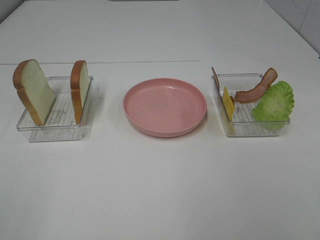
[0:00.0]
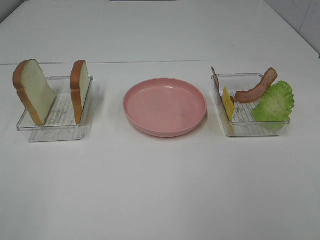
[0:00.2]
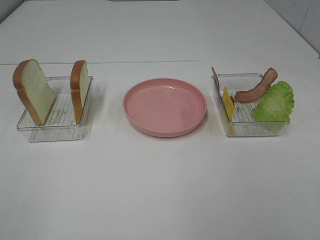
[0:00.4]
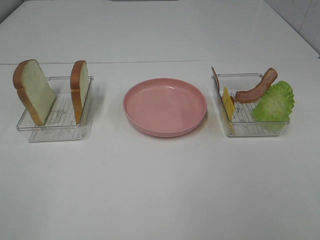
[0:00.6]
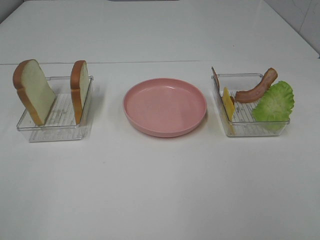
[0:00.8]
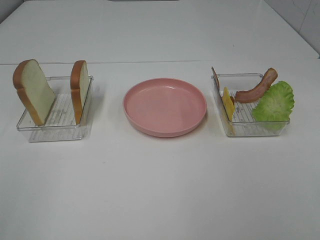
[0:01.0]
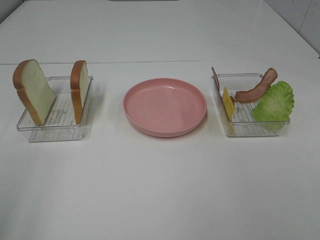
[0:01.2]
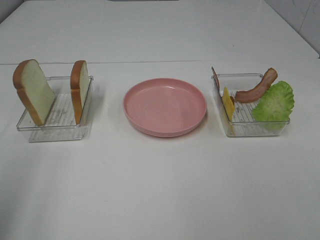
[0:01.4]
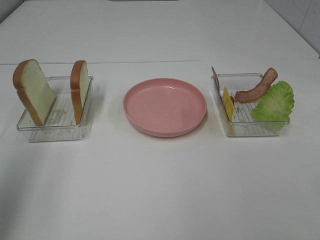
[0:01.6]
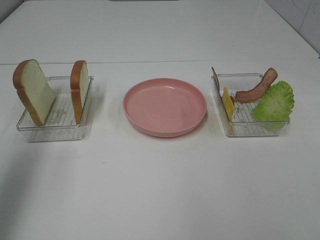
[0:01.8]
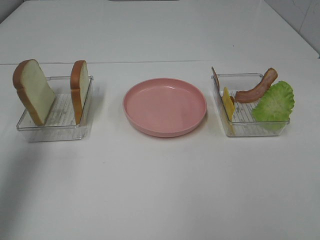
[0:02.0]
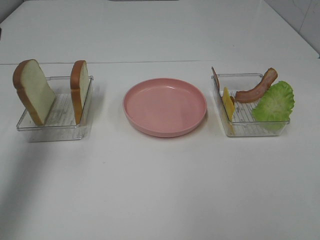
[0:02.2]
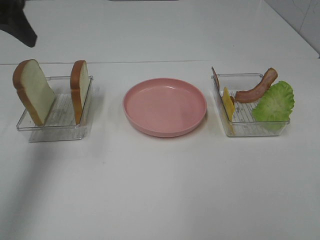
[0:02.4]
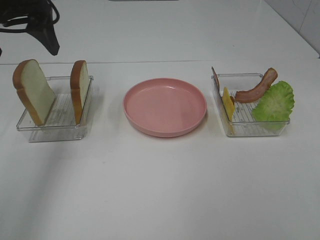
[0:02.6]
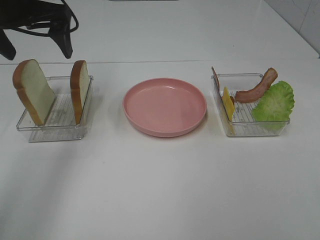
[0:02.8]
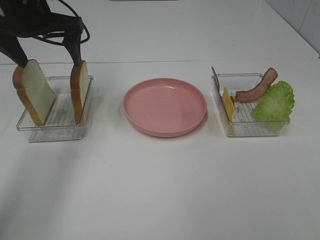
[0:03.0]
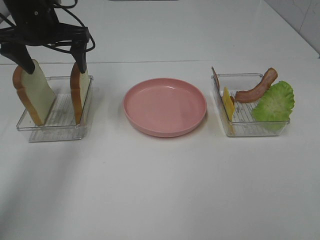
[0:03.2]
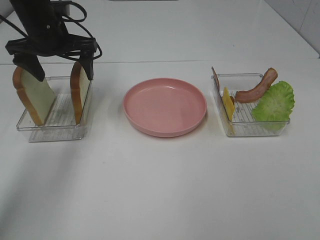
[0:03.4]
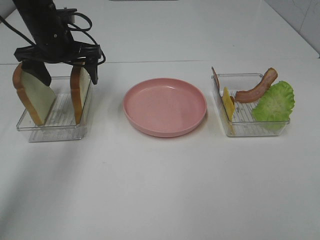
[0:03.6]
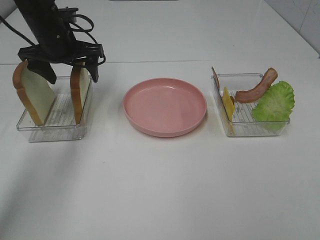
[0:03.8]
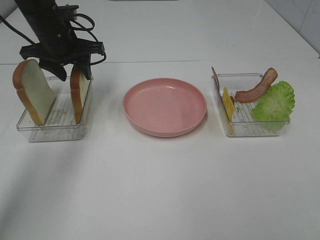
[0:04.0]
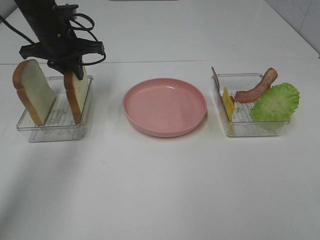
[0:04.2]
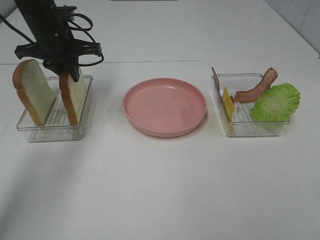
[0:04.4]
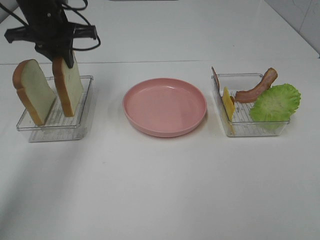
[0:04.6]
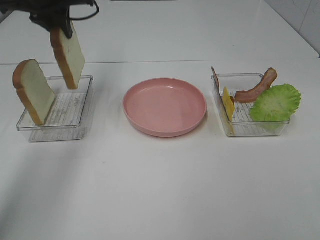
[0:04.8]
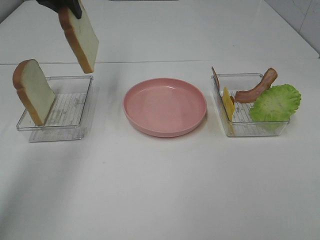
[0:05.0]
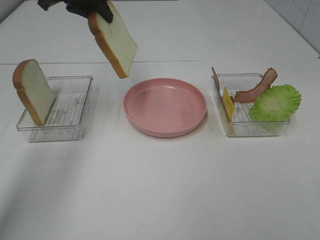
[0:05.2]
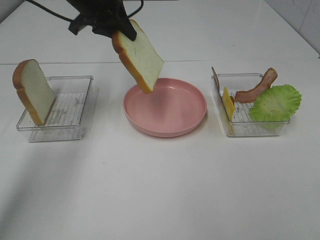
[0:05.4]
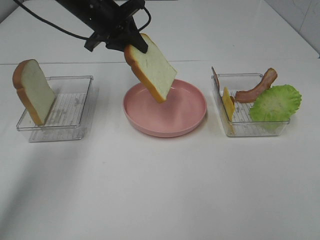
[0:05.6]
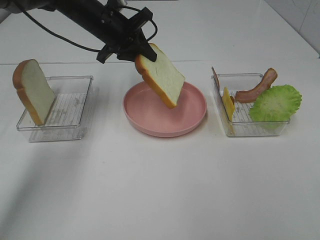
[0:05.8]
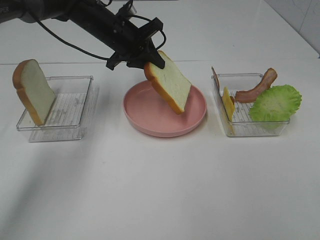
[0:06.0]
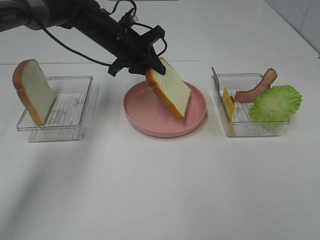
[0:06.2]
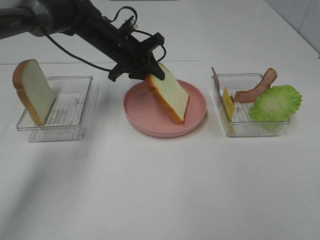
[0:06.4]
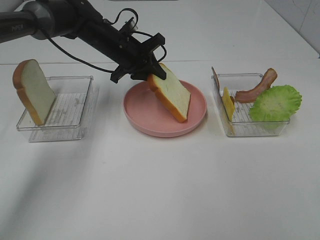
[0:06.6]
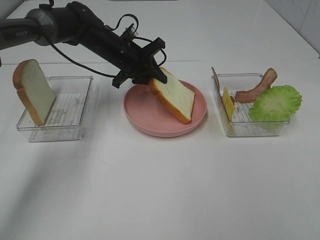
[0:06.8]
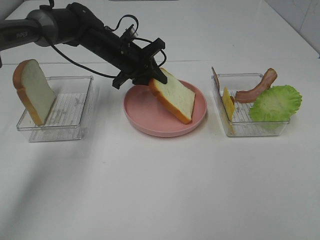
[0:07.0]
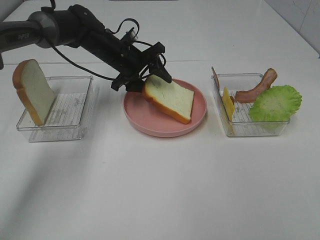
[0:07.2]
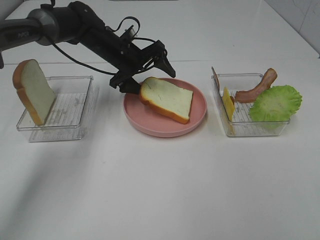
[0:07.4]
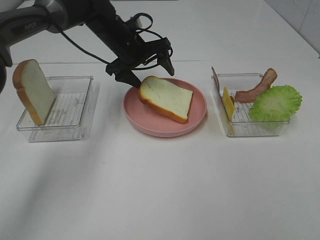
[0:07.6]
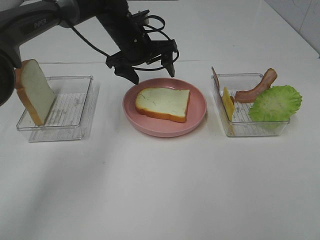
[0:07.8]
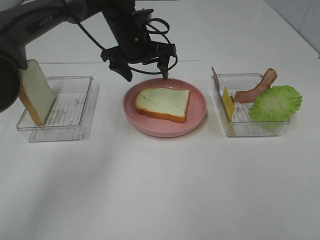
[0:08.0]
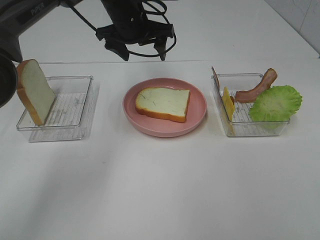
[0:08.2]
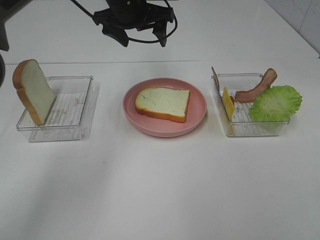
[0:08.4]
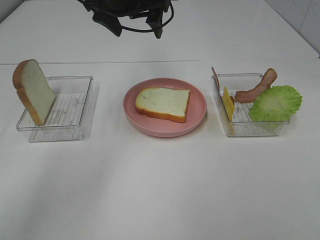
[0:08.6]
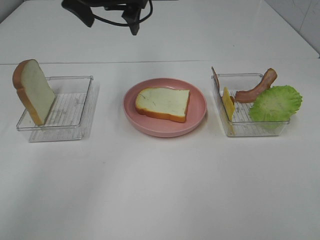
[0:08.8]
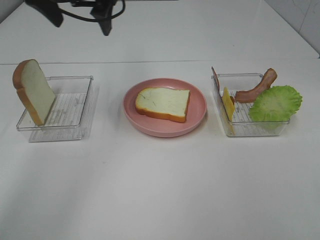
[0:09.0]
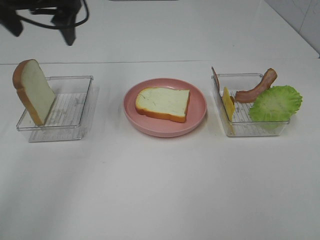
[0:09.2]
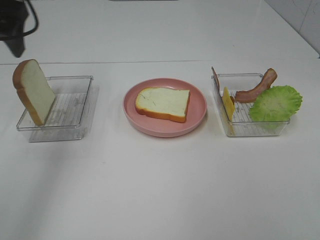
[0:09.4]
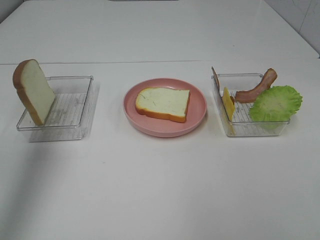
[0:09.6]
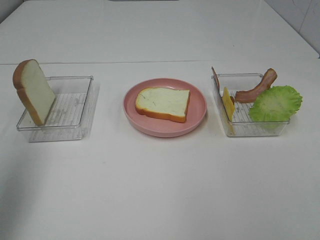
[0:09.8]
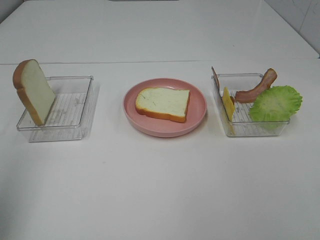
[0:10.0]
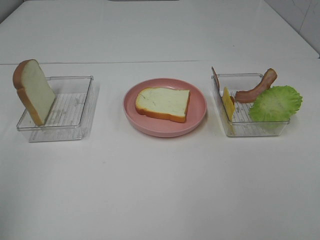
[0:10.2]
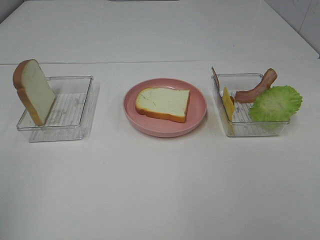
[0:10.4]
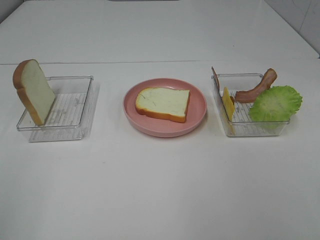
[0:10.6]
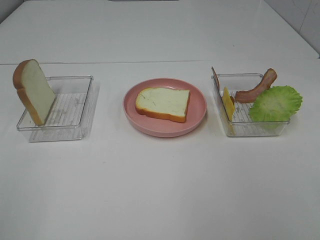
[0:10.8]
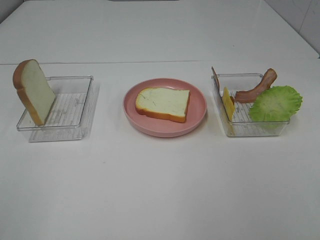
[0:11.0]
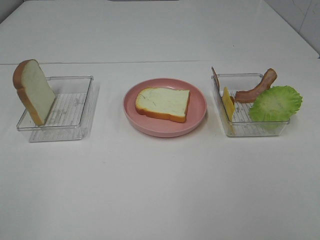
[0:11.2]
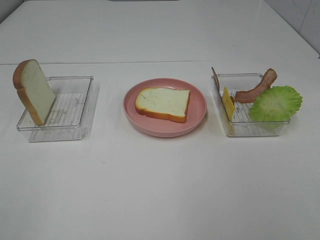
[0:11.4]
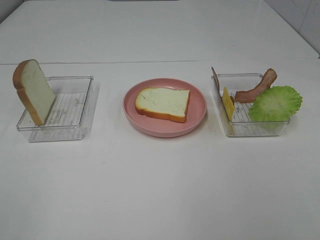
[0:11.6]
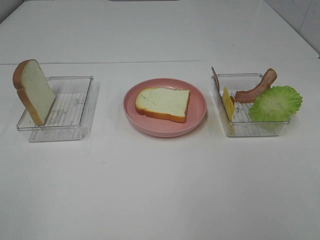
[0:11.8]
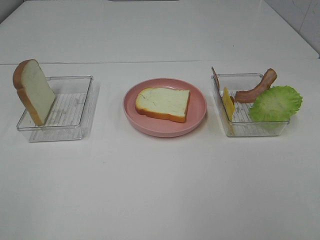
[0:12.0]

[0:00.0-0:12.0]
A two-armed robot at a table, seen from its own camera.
Task of the whole recording: Make sandwiches.
Step, 0:00.0 to 0:04.2: Left hand:grab the bread slice.
Step, 0:04.4 to 0:07.8: Left hand:place the bread slice on the plate.
0:00.0 to 0:01.6: The left gripper heads forward, covering some 15 cm.
0:01.6 to 0:03.0: The left gripper moves forward and to the right, roughly 30 cm.
0:03.0 to 0:04.4: The left gripper shifts some 5 cm downward, and closes up.
0:04.4 to 0:06.0: The left gripper goes about 10 cm to the right, and reaches approximately 10 cm upward, then returns.
0:06.0 to 0:07.6: The left gripper opens up.
0:07.6 to 0:09.0: The left gripper heads upward, backward and to the left, covering some 20 cm.
0:09.0 to 0:10.4: The left gripper shifts some 40 cm backward and to the left.

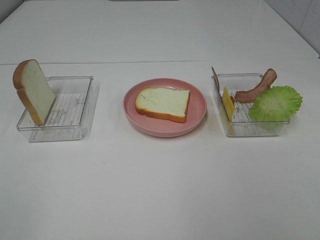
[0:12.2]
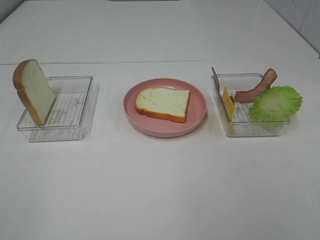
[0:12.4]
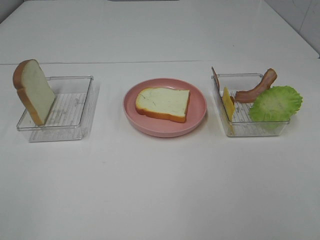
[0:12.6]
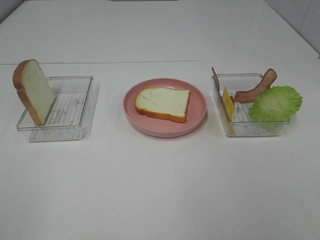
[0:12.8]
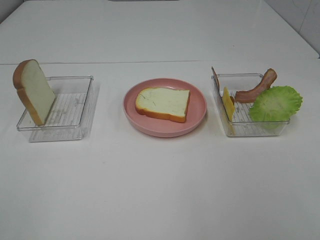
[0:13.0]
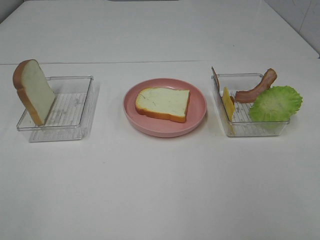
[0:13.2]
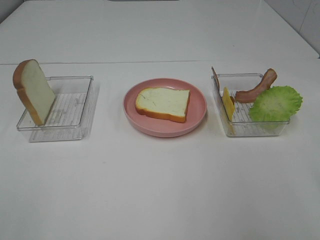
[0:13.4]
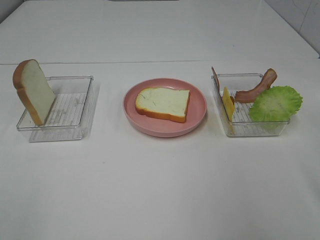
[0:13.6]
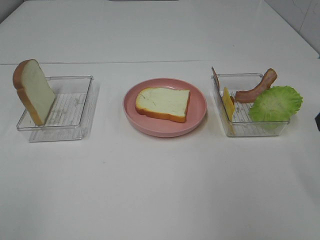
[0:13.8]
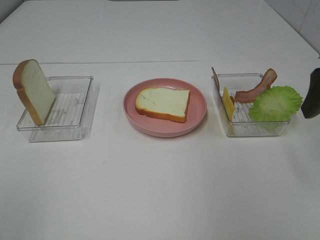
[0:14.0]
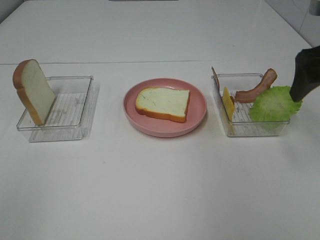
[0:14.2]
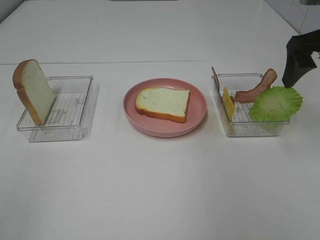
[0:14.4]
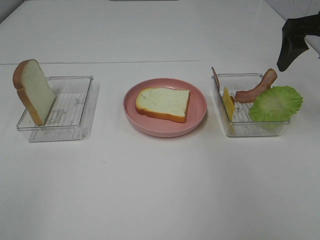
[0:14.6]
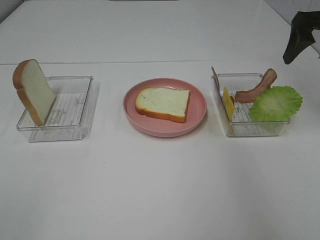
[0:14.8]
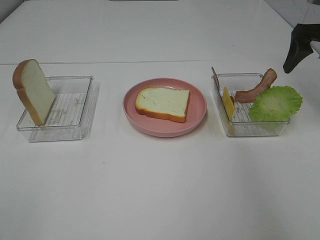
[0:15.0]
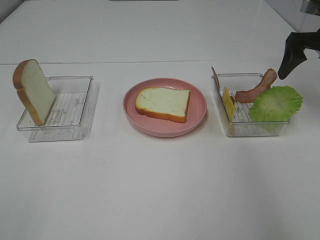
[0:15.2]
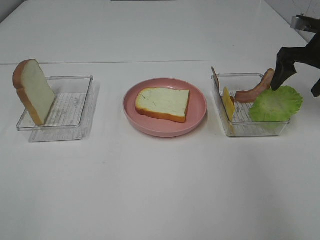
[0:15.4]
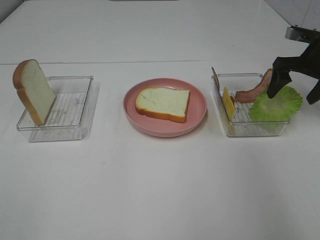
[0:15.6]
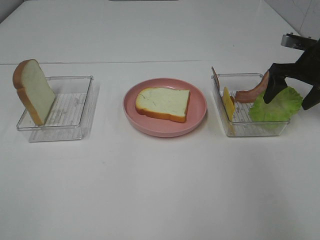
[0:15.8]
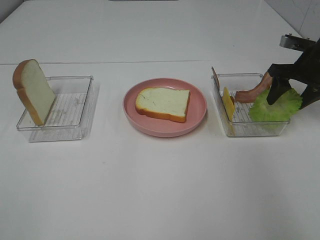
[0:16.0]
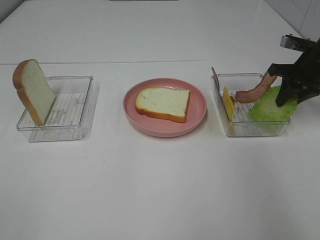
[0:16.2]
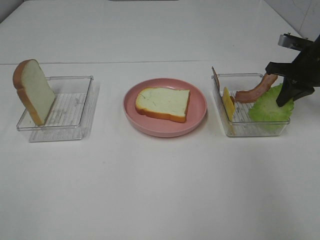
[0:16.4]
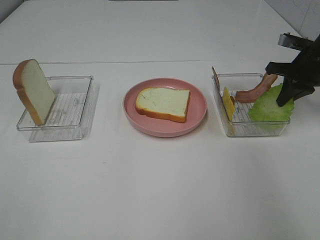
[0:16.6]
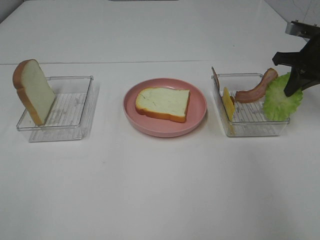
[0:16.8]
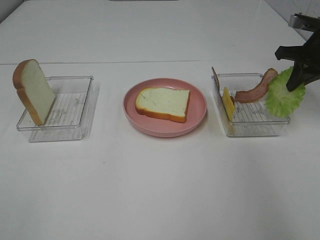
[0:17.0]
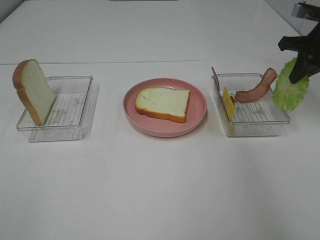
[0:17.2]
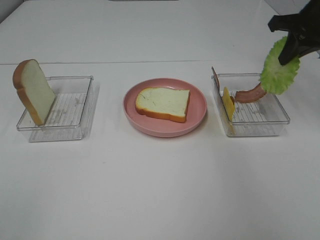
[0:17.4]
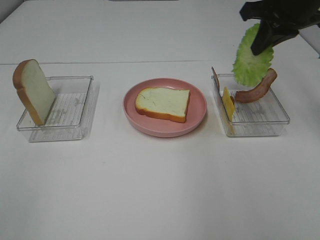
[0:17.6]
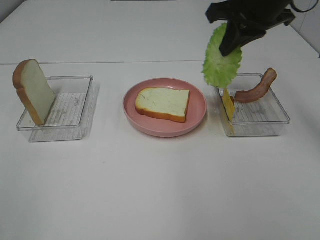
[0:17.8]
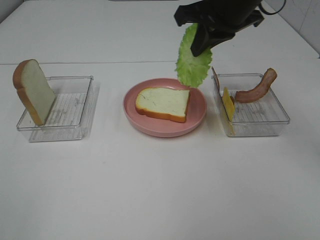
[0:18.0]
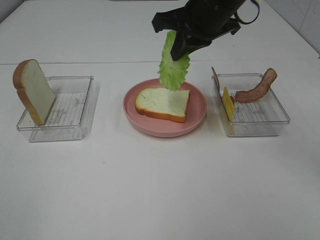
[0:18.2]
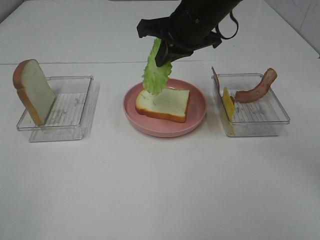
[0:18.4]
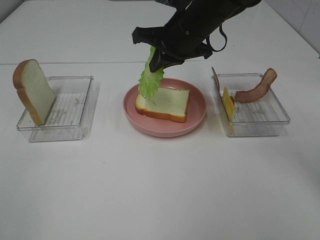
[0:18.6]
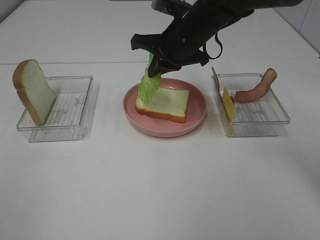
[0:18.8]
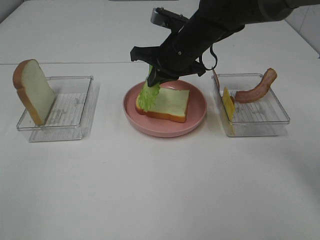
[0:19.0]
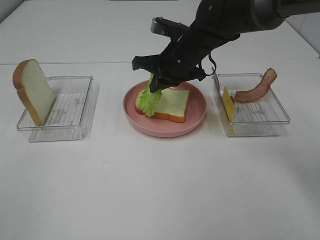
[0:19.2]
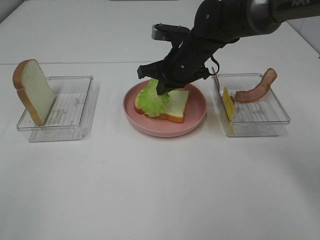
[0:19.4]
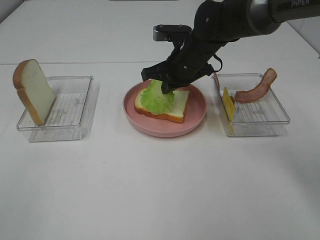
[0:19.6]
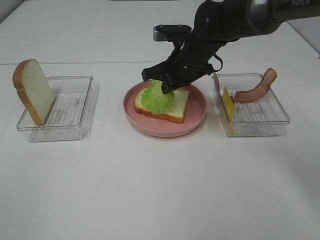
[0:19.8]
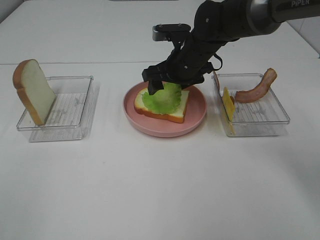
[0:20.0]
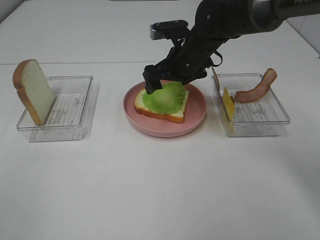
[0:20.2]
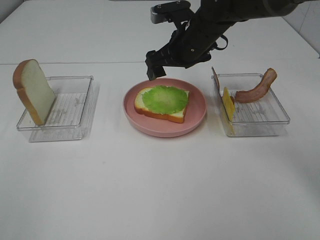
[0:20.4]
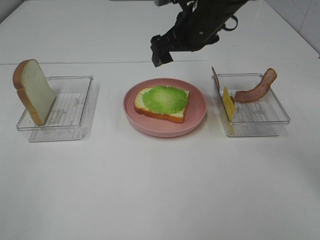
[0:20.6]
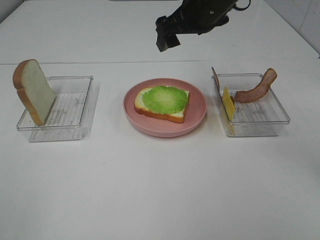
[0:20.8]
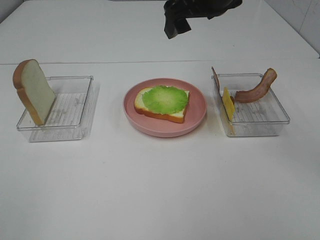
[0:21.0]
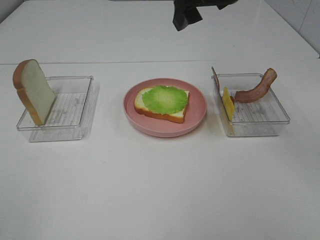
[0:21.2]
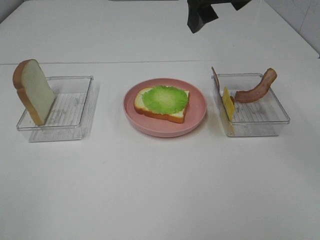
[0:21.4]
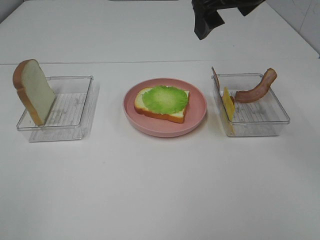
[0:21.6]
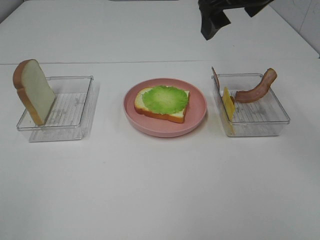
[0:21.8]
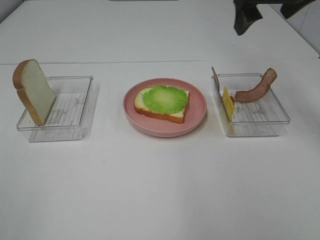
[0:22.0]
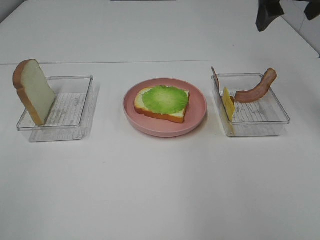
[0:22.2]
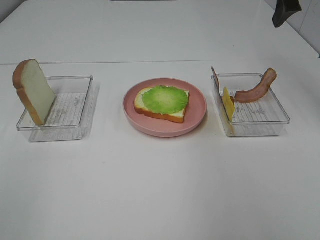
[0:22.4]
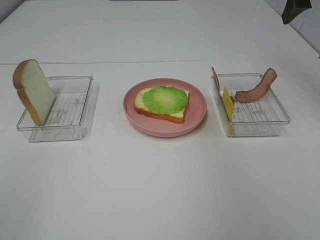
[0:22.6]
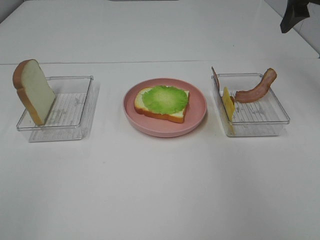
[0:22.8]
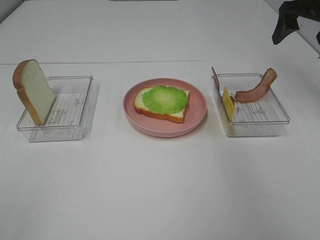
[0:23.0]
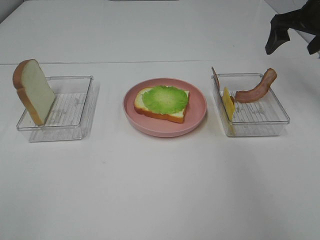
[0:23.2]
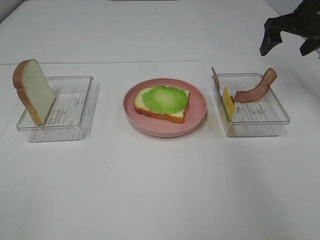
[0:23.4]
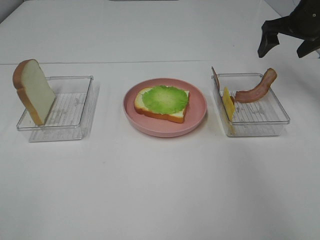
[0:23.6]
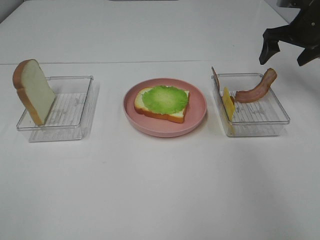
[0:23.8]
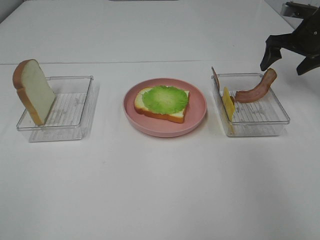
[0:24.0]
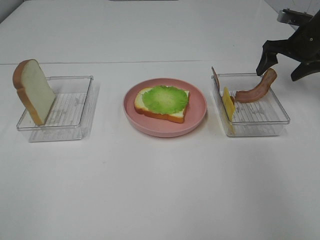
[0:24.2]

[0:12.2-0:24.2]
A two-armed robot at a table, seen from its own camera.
Task of the whole recording: Make sandwiches.
Step, 0:12.2 to 0:16.2: Right hand:grab the lettuce slice.
Step, 0:16.4 to 0:20.4: Right hand:place the lettuce slice on the bread slice.
0:13.8 to 0:15.2: The right gripper moves forward, some 20 cm.
0:15.2 to 0:16.6: The right gripper heads downward, covering approximately 5 cm, and closes up.
0:16.6 to 0:18.2: The right gripper goes approximately 25 cm to the left and upward.
0:18.2 to 0:19.8: The right gripper goes some 10 cm downward.
0:19.8 to 0:21.2: The right gripper travels upward by approximately 20 cm, and opens up.
0:21.2 to 0:22.6: The right gripper shifts approximately 20 cm to the right.
0:22.6 to 0:24.2: The right gripper shifts roughly 20 cm downward and forward.
